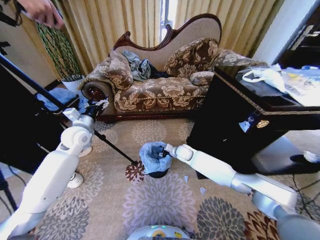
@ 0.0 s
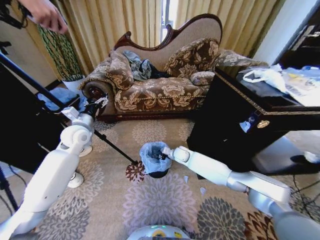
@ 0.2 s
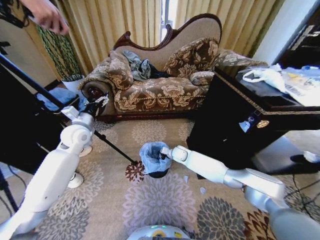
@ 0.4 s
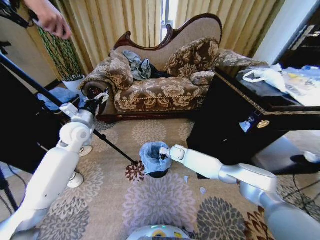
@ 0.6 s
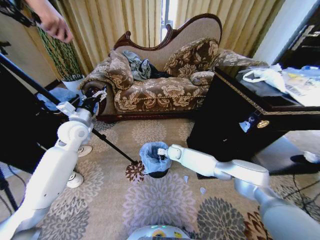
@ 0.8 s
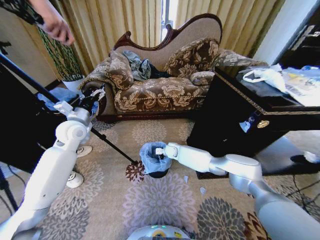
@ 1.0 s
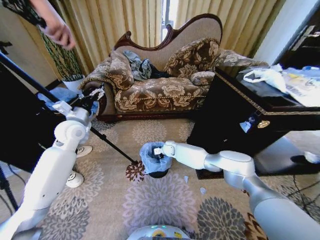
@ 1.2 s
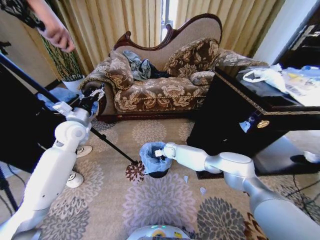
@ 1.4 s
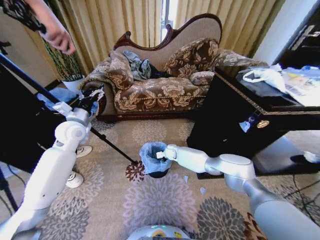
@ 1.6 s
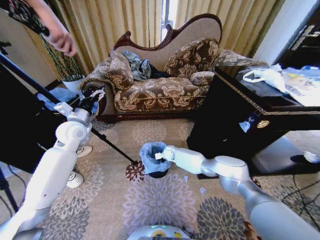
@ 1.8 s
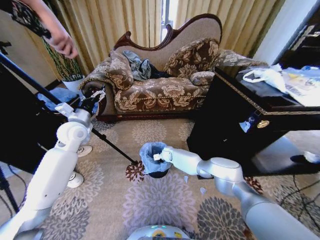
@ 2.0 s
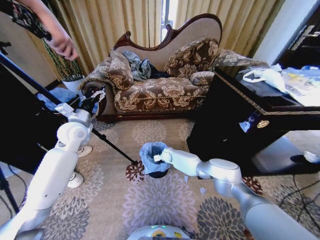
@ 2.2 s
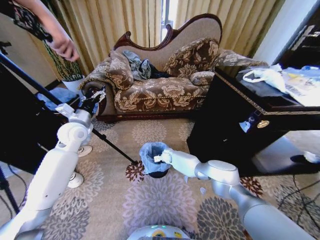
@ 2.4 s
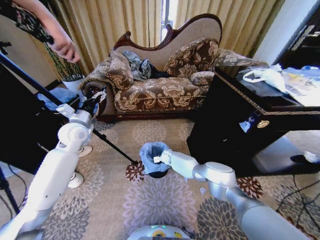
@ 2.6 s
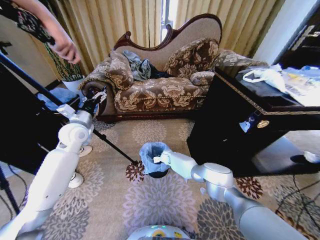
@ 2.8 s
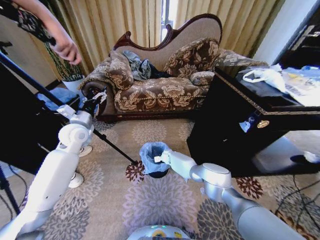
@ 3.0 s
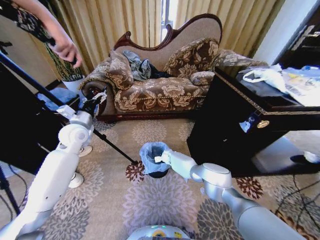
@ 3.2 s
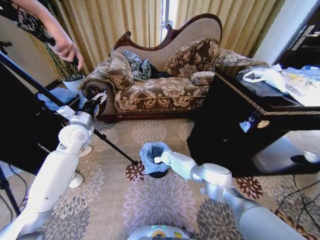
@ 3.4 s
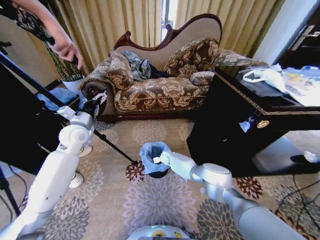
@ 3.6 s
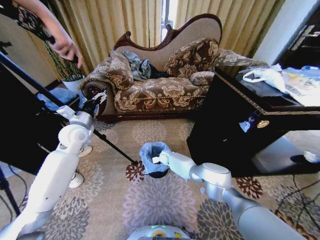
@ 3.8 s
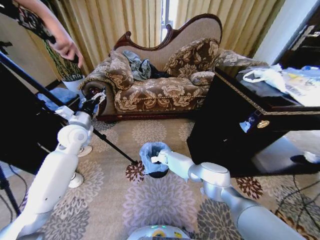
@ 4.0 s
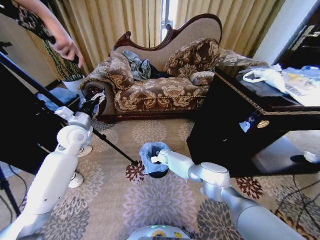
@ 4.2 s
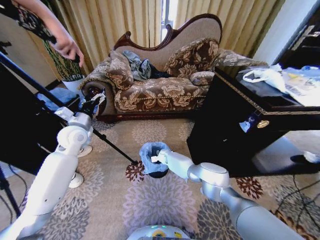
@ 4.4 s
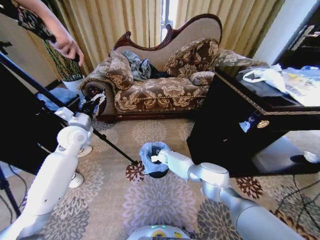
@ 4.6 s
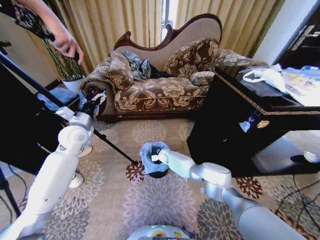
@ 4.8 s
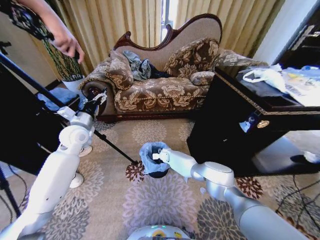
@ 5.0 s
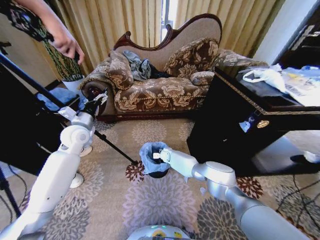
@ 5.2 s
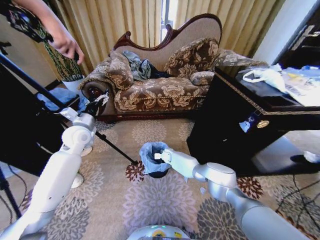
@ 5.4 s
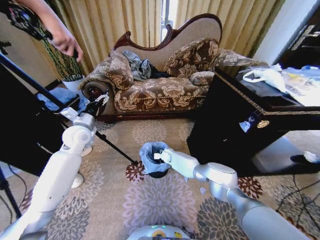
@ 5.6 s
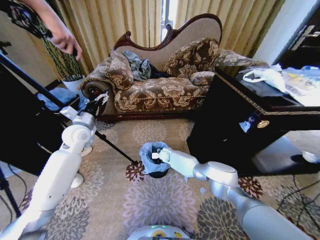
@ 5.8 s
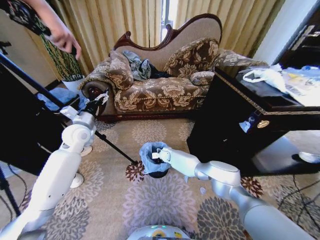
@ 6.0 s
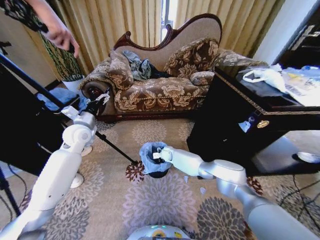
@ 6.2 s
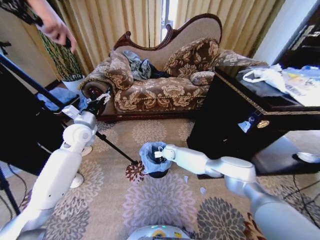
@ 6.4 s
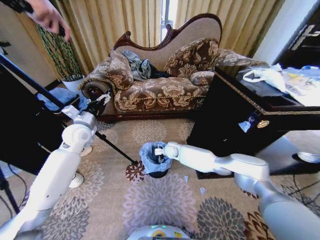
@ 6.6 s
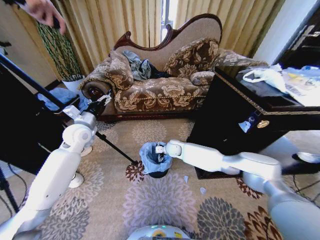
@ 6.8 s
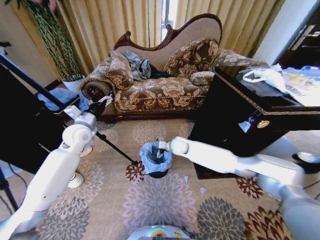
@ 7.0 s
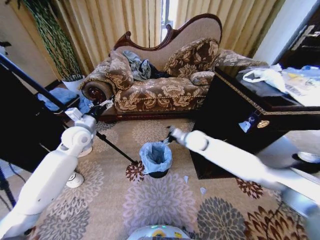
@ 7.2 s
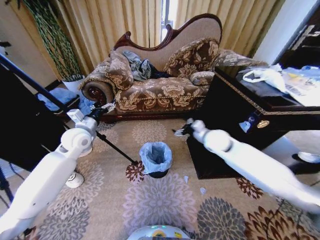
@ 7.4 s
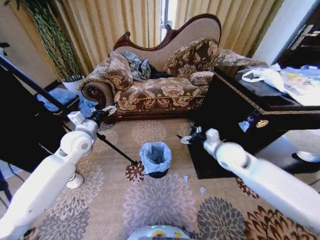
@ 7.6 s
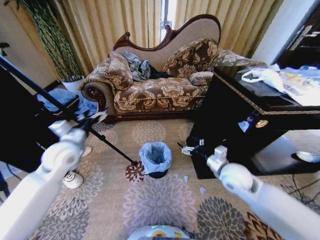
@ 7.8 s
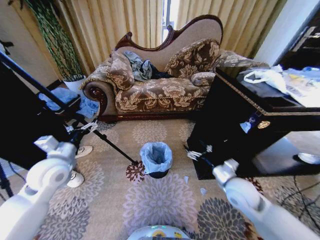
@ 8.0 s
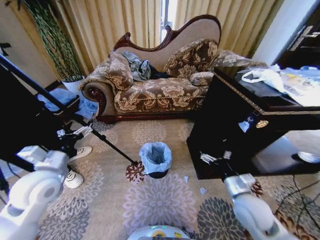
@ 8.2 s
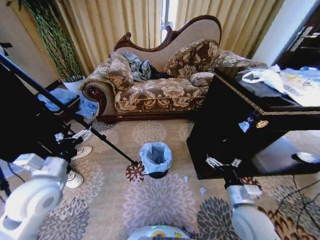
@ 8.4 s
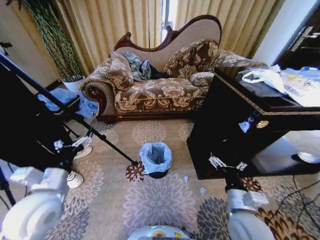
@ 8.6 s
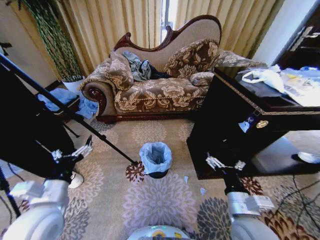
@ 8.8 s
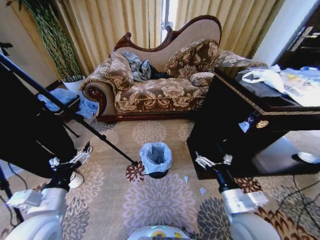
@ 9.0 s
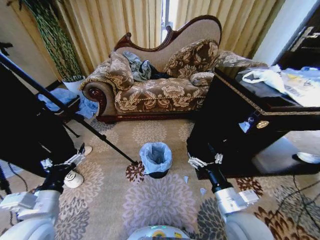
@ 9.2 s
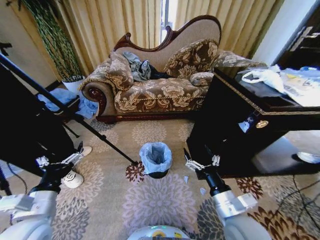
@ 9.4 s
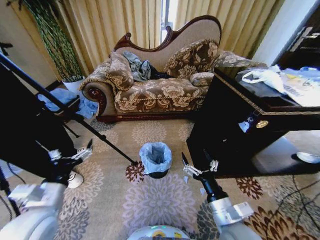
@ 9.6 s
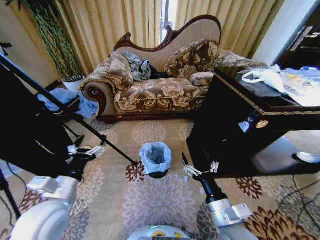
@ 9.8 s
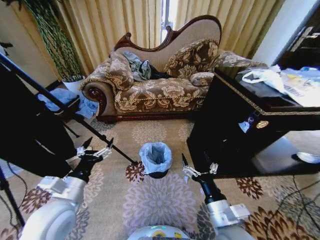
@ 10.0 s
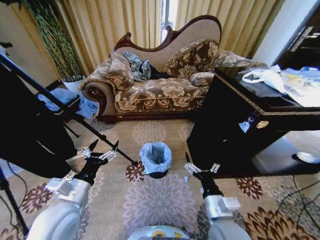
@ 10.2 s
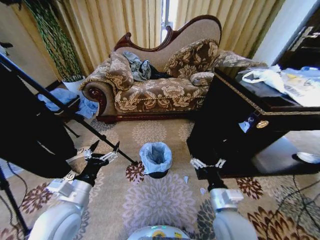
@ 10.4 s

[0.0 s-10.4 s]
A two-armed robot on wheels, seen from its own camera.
Task of the whole recording: Place a garbage bag over the trash bin.
0.0 to 1.4 s: The right gripper goes about 10 cm to the left and forward, and closes.
1.4 to 3.0 s: The right gripper heads downward, covering some 5 cm.
3.0 to 4.4 s: The right gripper opens its fingers.
4.4 to 6.0 s: The grippers move only a little.
6.0 to 7.4 s: The right gripper goes roughly 35 cm upward, to the right and backward.
7.4 to 9.0 s: Both grippers travel together backward, approximately 25 cm.

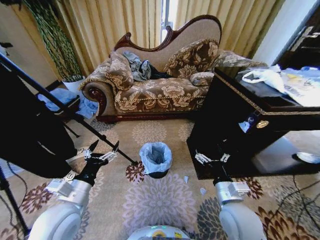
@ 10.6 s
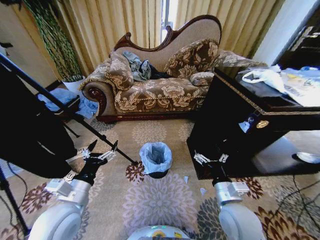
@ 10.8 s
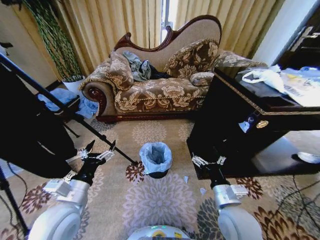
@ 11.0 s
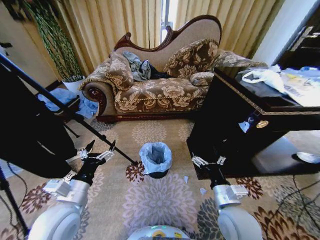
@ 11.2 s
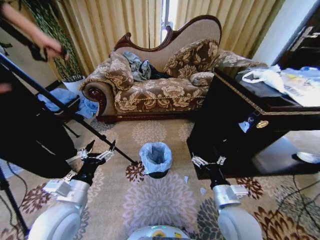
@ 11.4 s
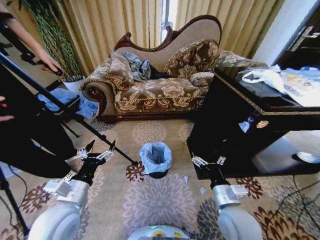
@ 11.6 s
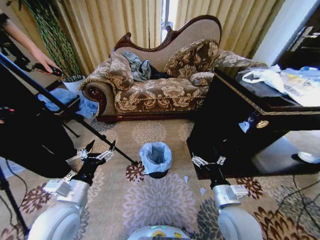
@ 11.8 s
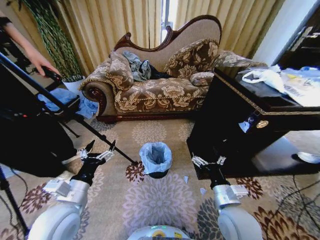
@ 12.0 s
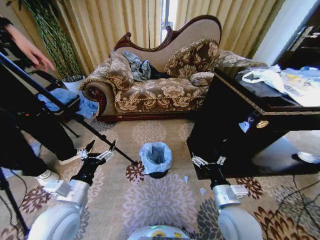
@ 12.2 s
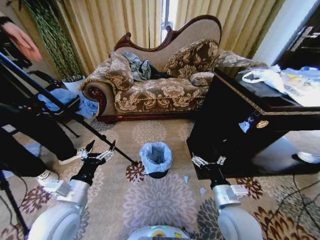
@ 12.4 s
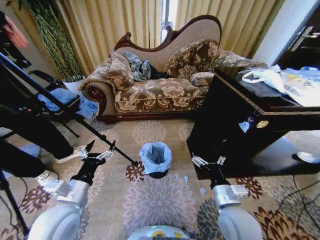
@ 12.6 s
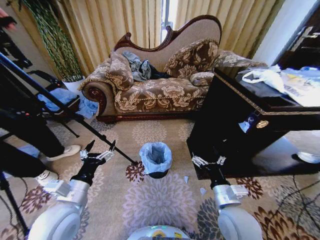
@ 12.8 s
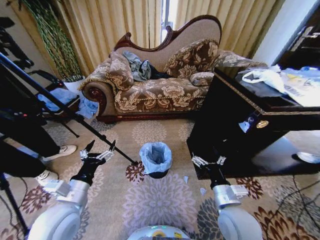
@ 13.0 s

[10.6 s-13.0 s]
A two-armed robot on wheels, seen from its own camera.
Task of the whole recording: Place a garbage bag over the trash bin.
10.6 to 13.0 s: The two grippers keep their place.
